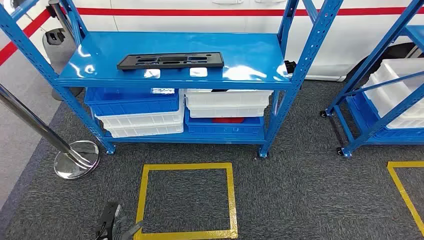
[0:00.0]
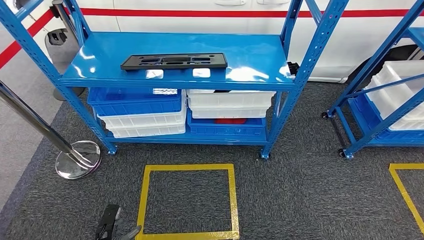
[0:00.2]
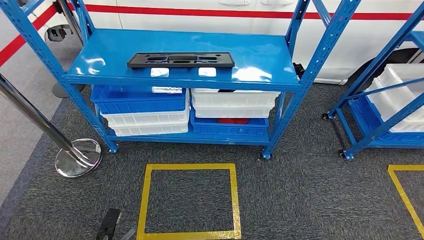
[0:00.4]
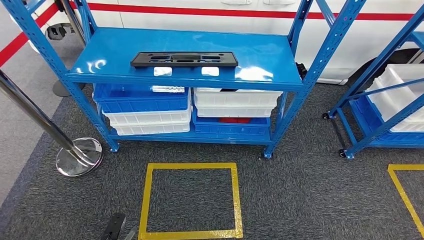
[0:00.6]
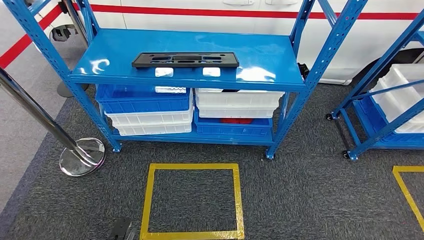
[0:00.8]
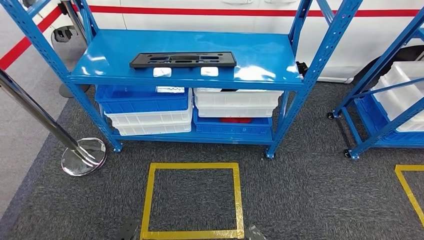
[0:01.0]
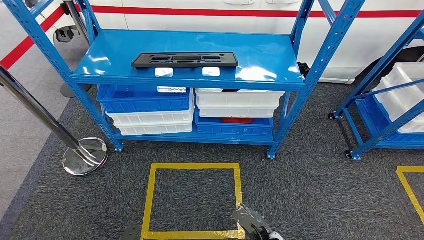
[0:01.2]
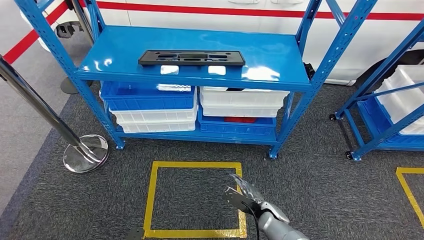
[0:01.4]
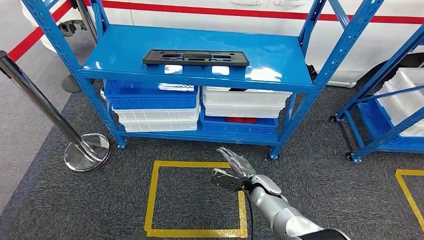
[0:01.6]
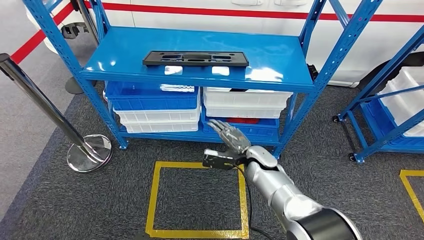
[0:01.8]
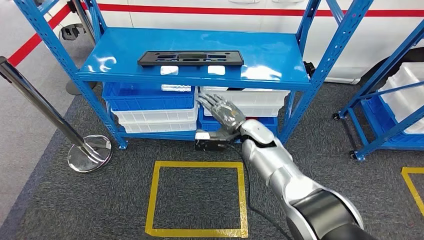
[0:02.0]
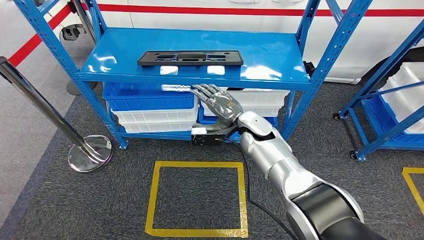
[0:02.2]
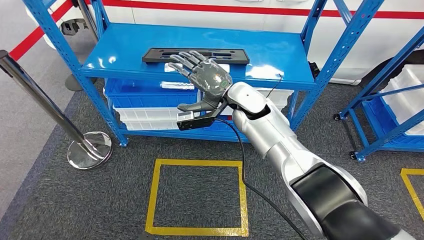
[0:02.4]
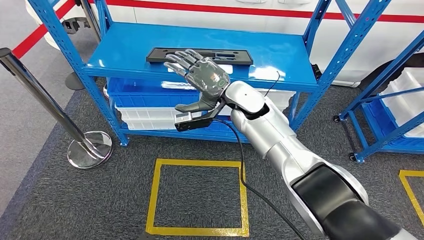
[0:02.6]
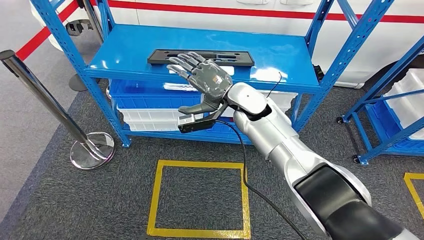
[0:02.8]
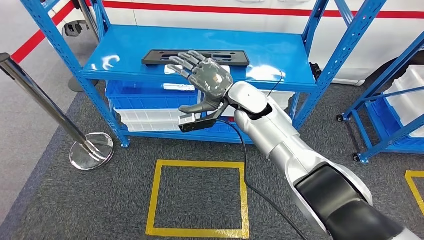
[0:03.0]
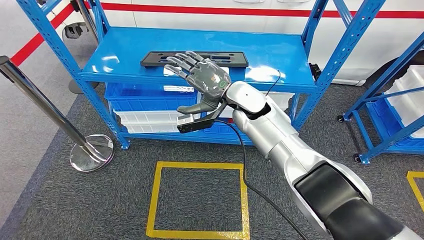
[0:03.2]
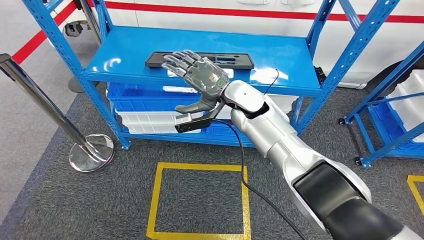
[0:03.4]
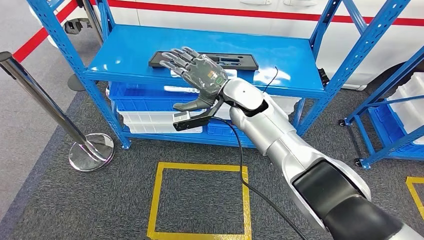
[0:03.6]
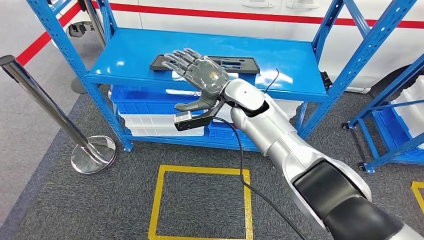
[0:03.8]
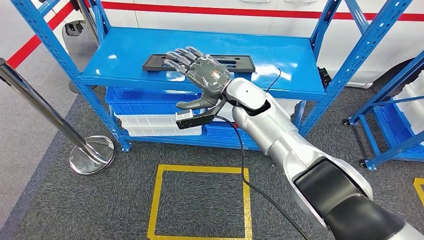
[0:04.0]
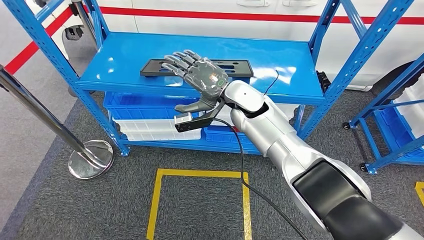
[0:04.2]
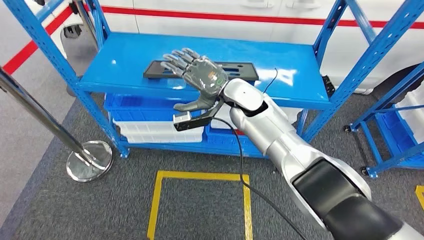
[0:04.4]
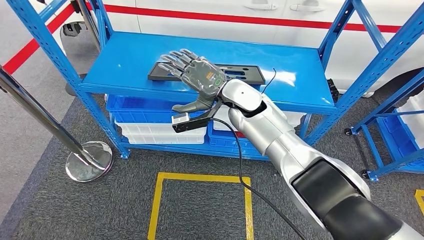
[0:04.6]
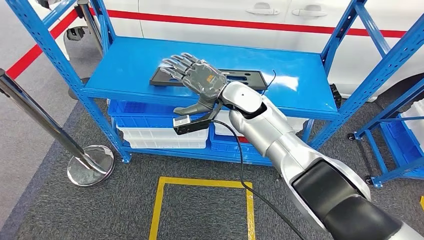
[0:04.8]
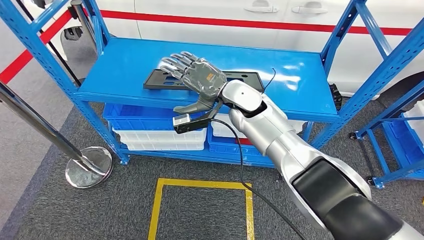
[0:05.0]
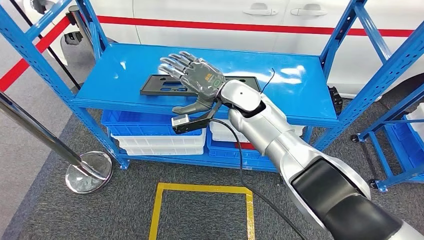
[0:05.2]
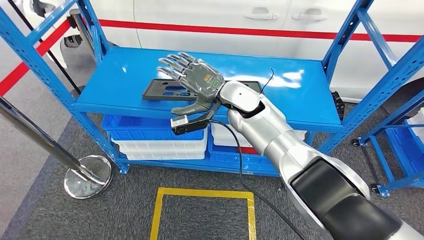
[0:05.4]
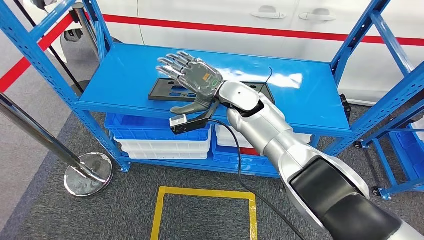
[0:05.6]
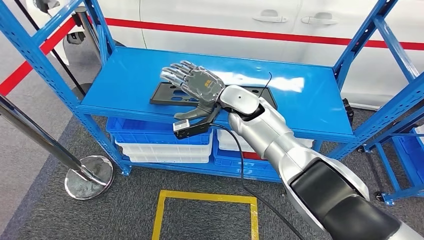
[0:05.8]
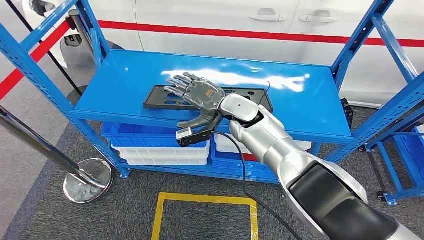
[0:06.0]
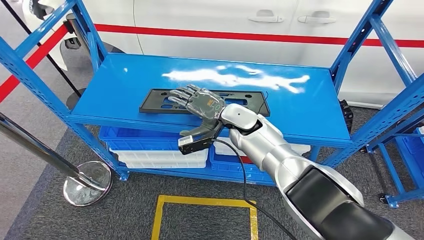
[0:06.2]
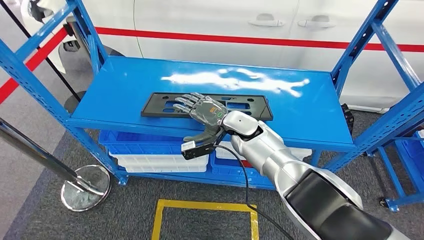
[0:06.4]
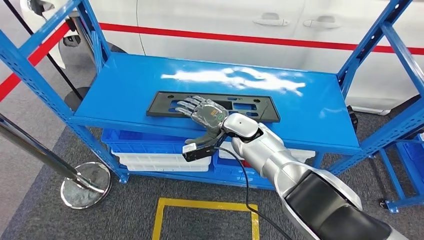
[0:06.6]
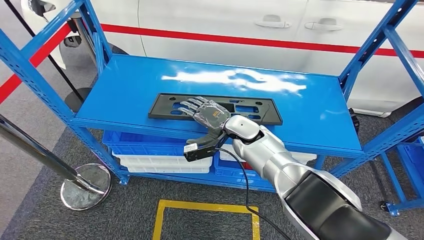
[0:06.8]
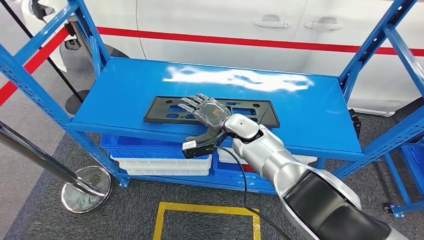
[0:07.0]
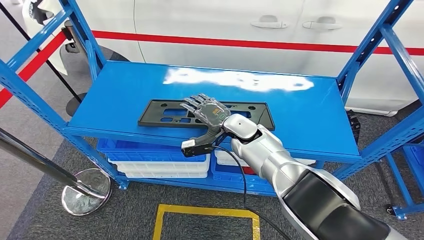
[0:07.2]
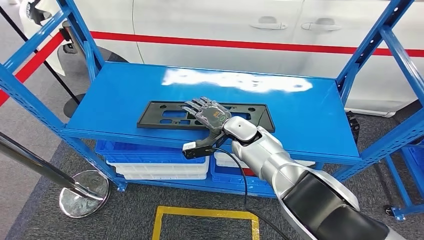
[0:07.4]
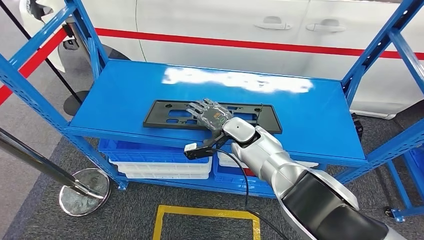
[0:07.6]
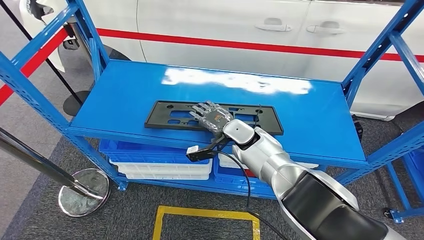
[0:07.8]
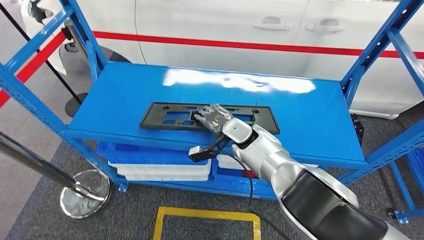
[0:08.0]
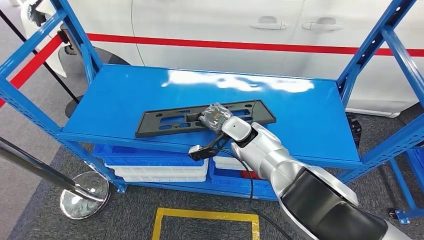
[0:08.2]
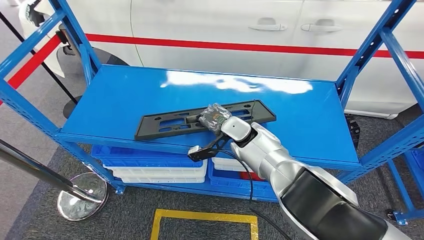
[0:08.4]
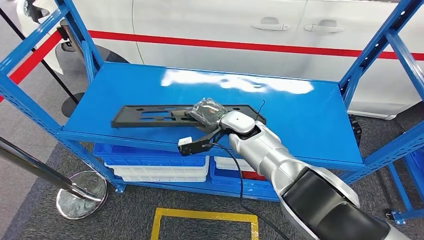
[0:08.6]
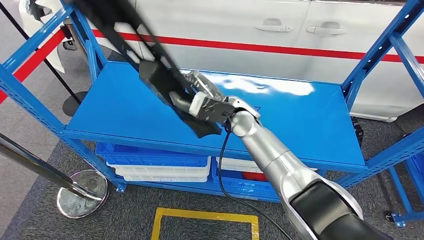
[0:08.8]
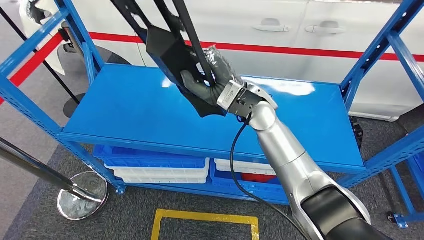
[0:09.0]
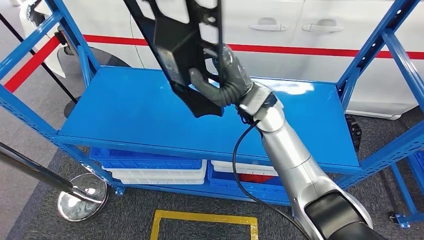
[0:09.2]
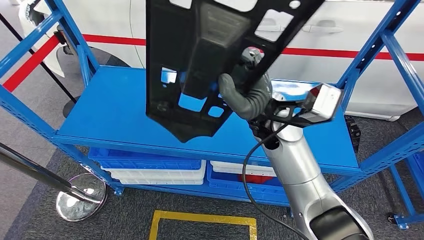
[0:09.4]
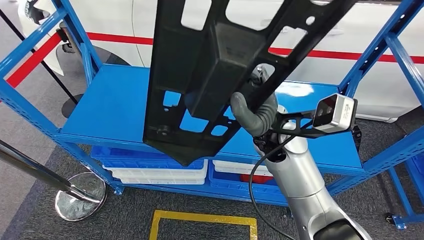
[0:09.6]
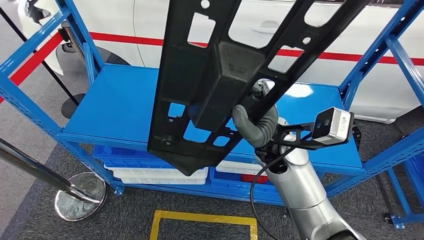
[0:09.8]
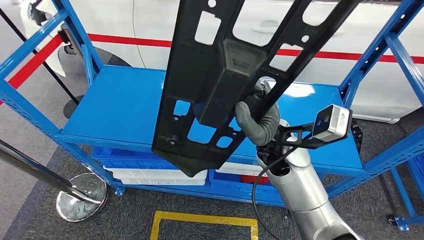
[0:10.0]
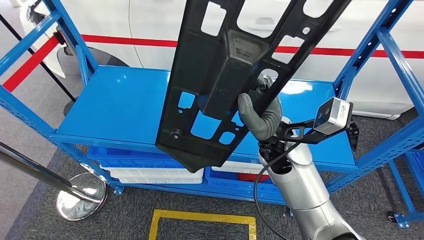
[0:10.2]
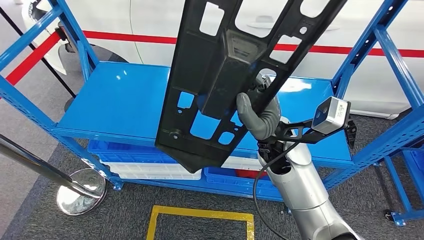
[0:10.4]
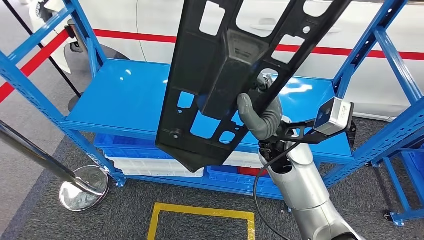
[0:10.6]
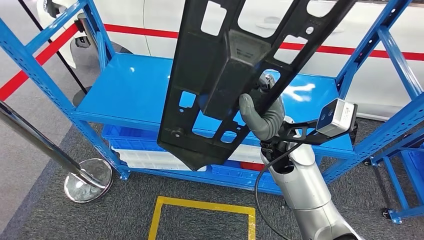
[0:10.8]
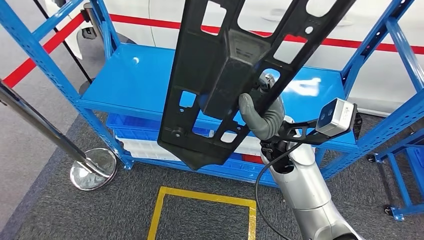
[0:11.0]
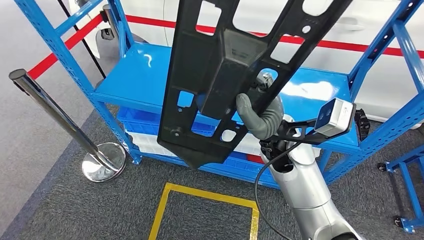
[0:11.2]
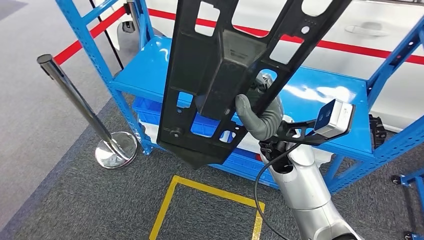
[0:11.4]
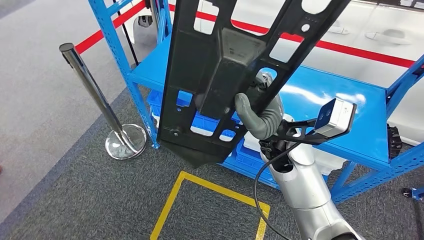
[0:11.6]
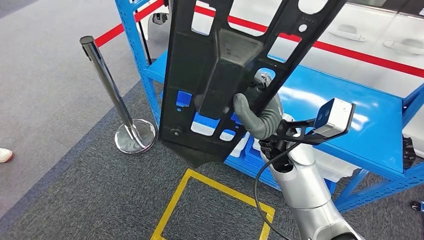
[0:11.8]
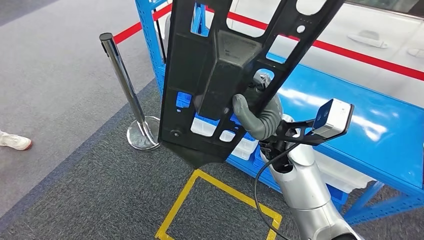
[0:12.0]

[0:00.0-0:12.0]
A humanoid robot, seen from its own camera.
Step, 0:00.0 to 0:09.4: Pick up the large material from the shelf.

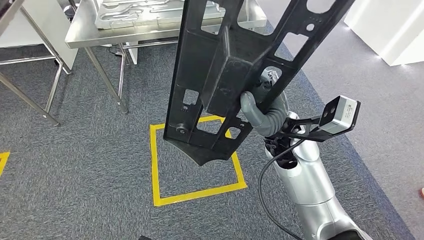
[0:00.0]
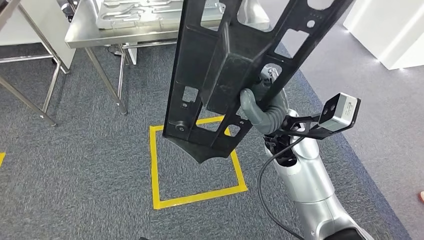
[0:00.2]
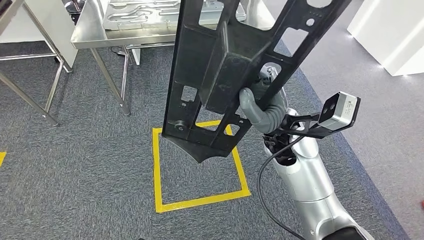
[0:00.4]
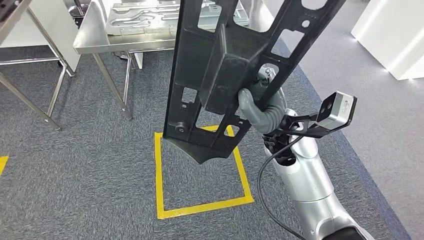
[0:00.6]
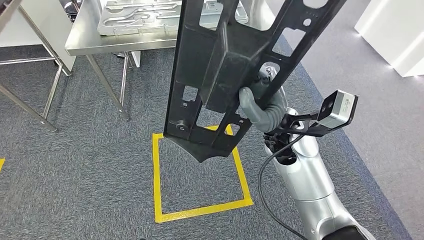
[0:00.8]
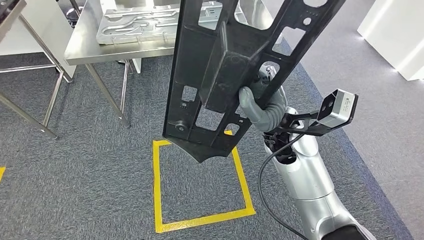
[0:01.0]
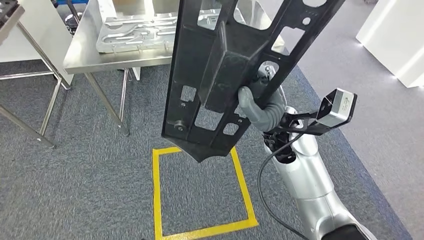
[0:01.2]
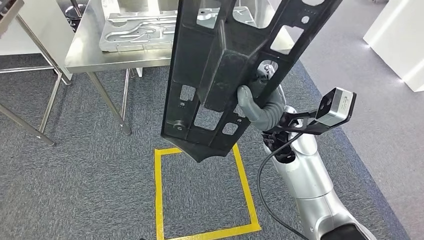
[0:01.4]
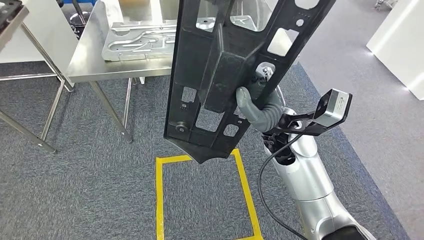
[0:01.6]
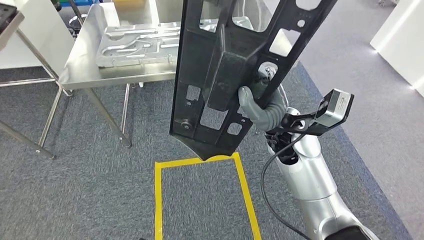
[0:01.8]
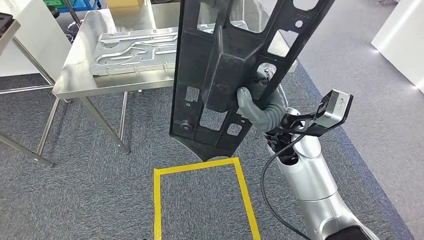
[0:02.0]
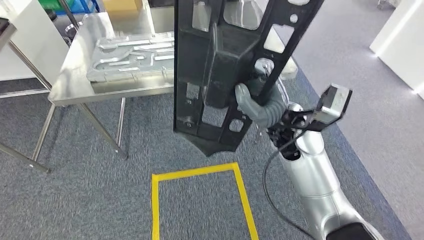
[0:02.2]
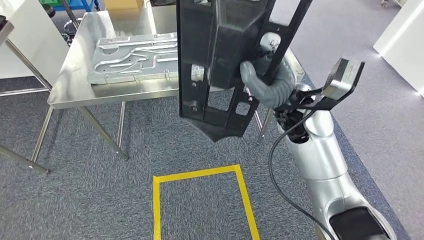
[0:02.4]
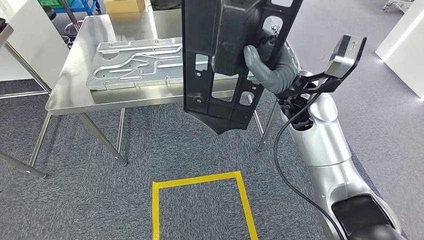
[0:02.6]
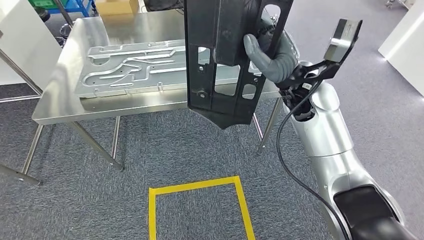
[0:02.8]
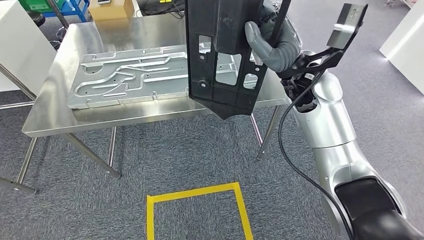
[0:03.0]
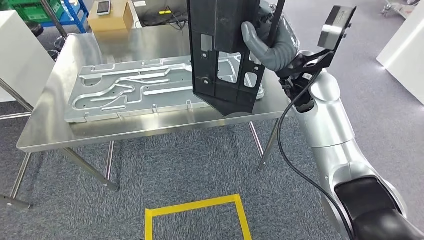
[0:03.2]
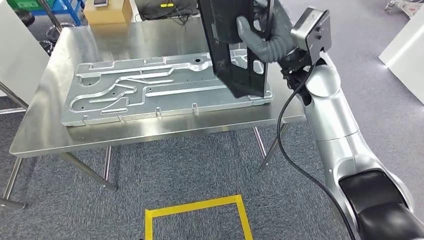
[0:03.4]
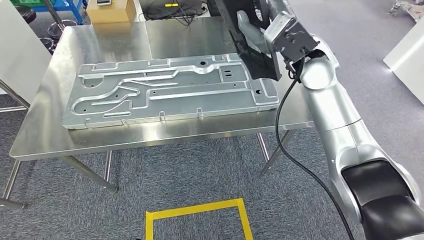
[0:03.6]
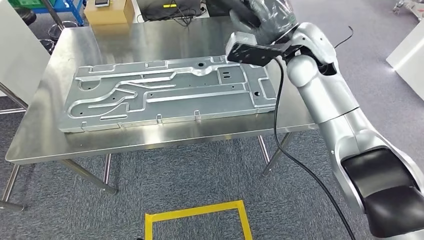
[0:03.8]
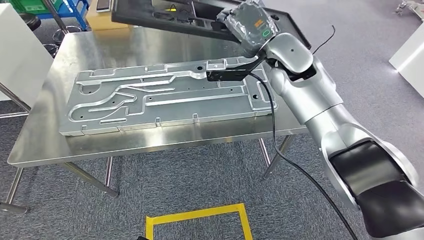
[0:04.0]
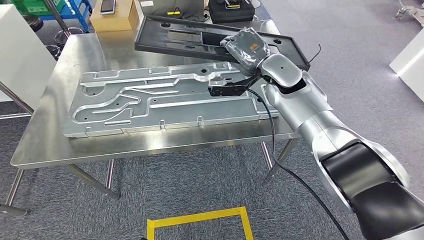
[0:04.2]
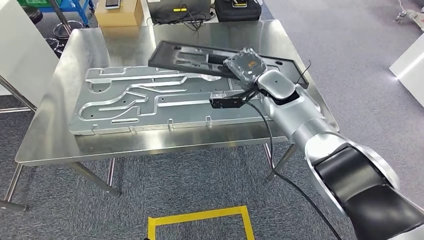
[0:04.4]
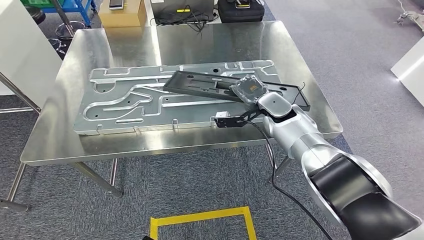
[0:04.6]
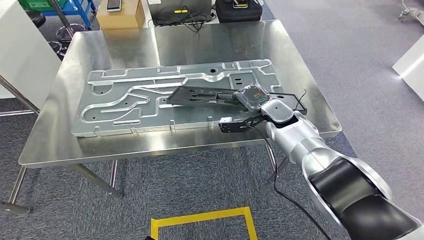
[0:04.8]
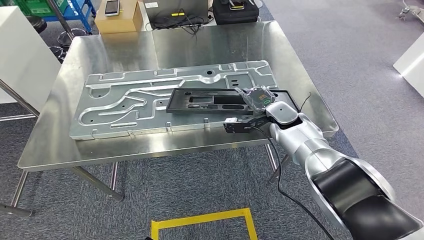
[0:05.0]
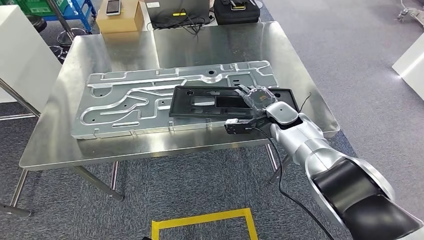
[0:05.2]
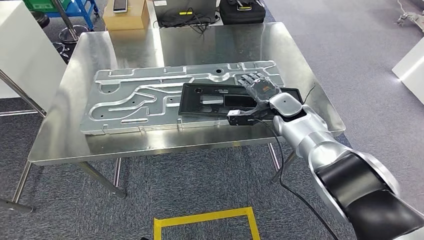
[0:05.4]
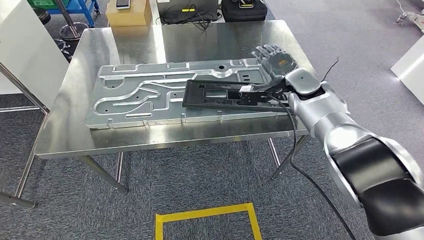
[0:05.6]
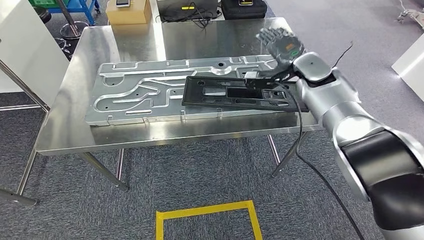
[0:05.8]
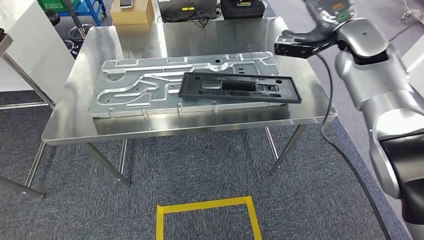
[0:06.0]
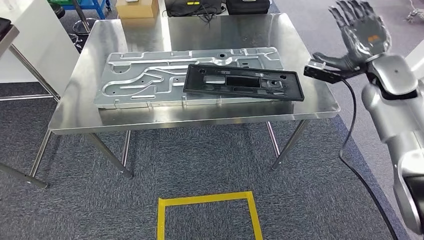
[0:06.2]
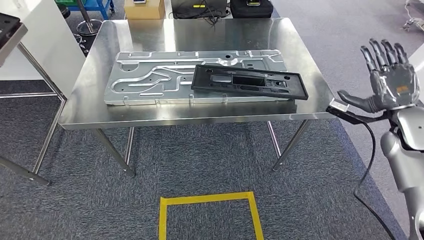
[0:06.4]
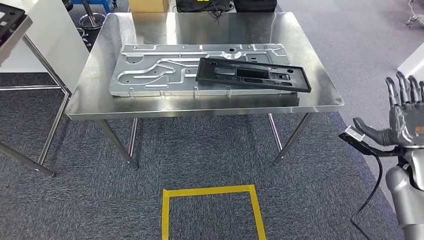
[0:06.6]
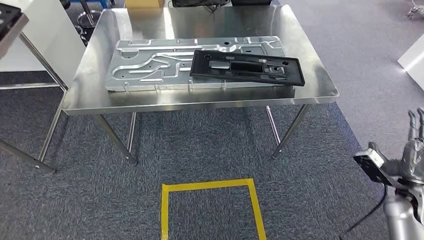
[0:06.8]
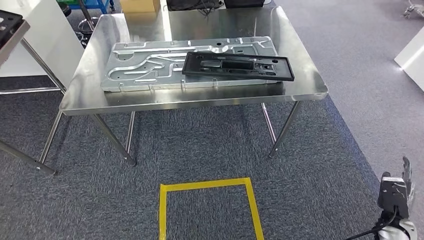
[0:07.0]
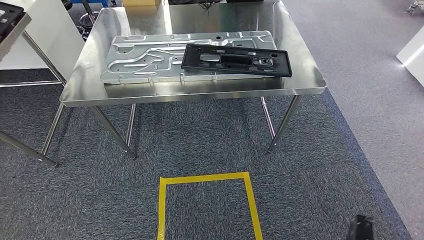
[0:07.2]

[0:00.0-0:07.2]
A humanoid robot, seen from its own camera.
Step, 0:00.0 to 0:02.2: Move the large material to the workbench.
